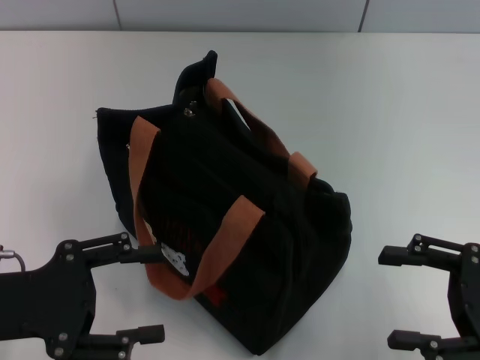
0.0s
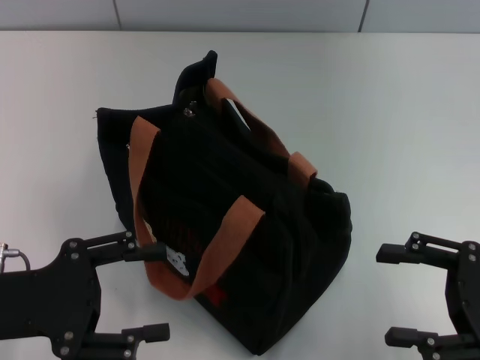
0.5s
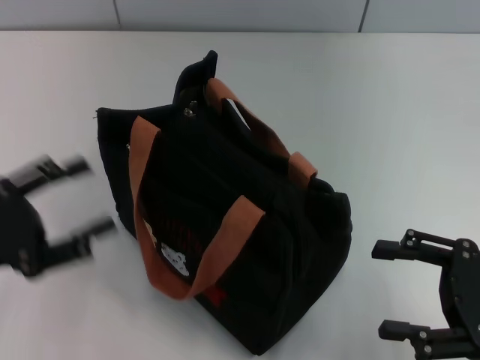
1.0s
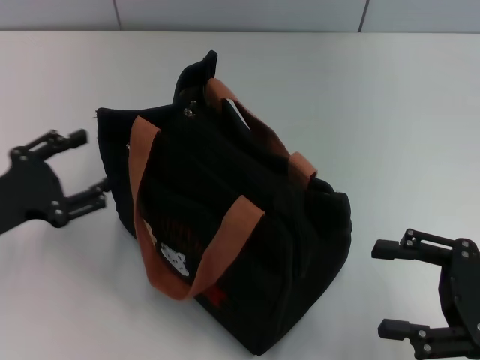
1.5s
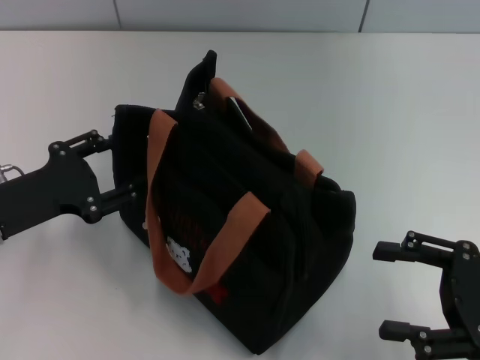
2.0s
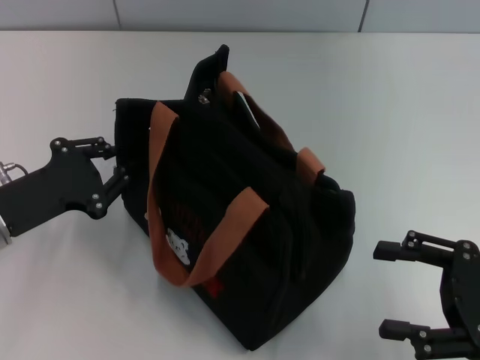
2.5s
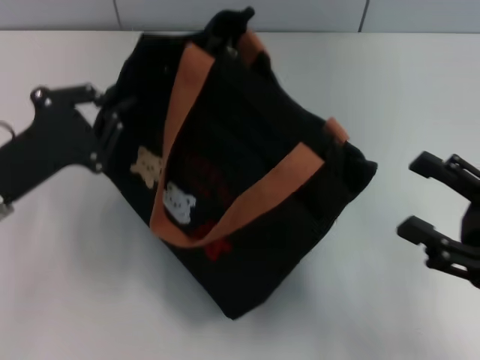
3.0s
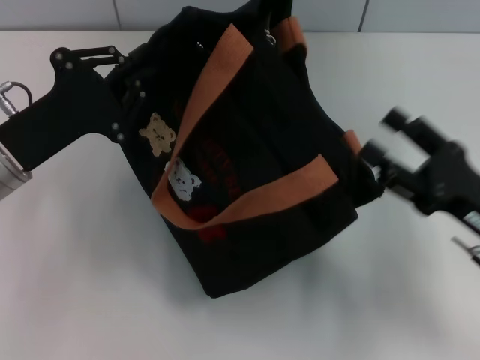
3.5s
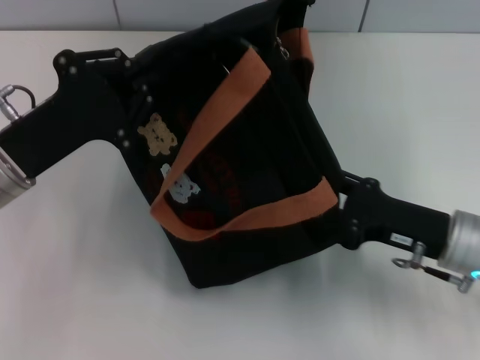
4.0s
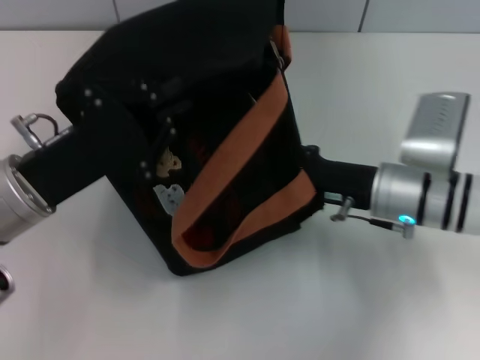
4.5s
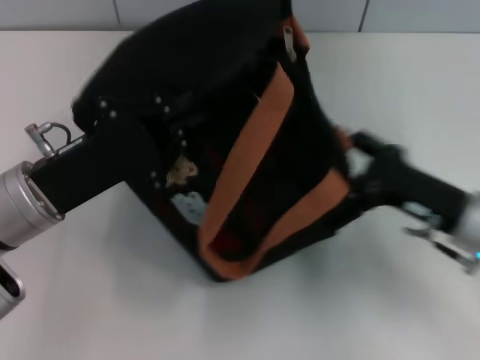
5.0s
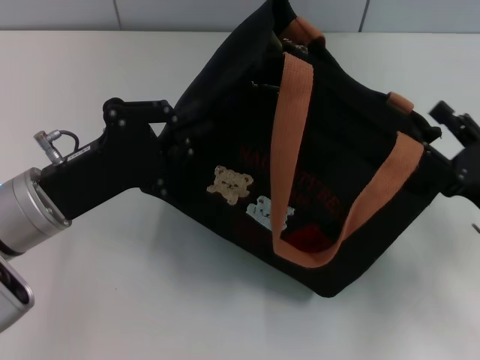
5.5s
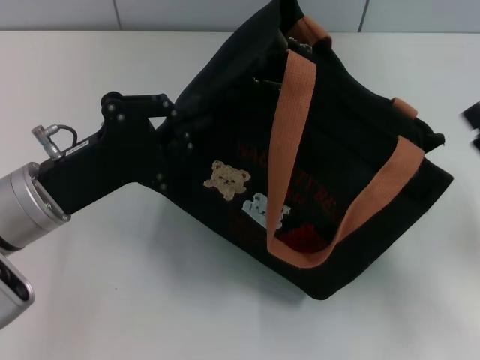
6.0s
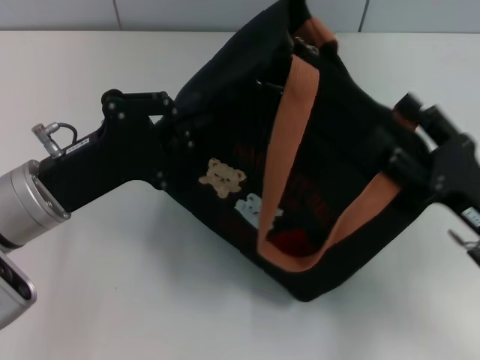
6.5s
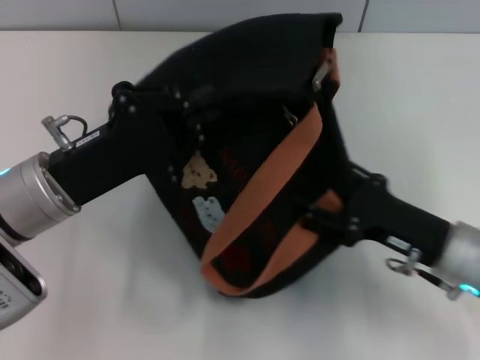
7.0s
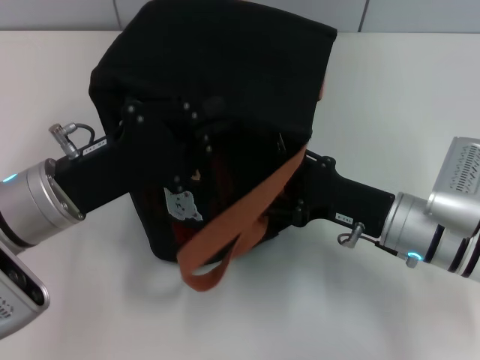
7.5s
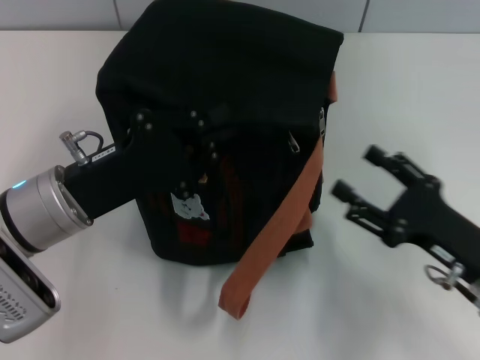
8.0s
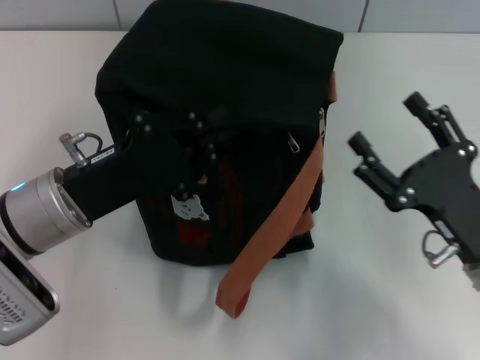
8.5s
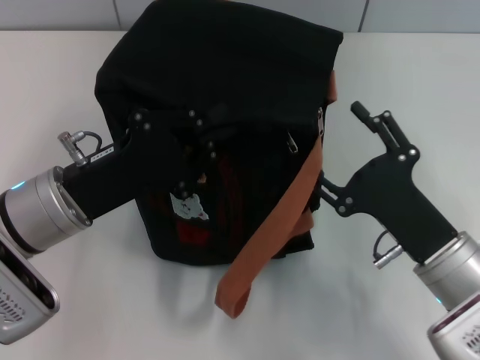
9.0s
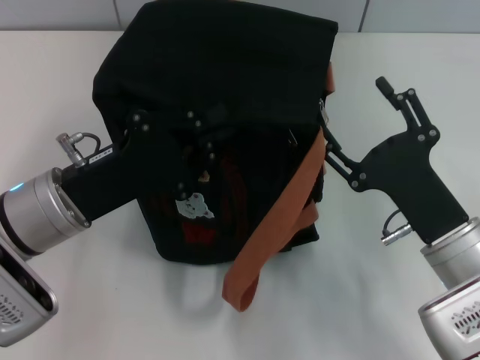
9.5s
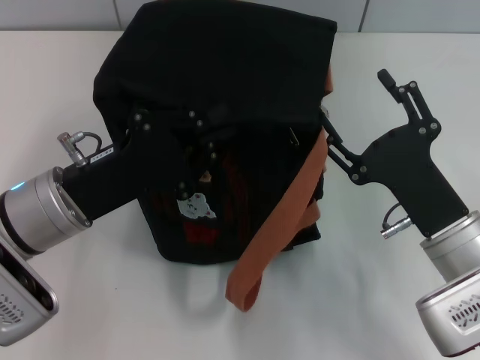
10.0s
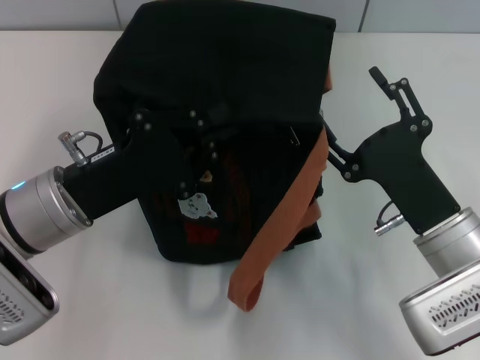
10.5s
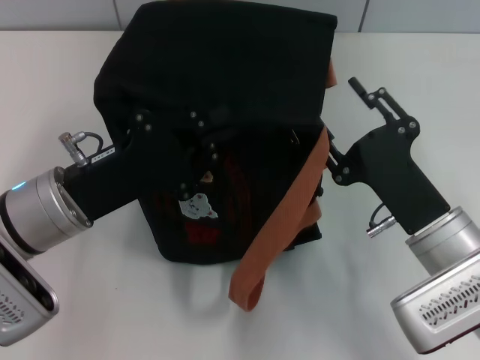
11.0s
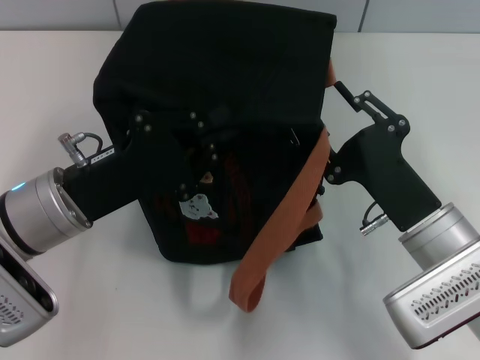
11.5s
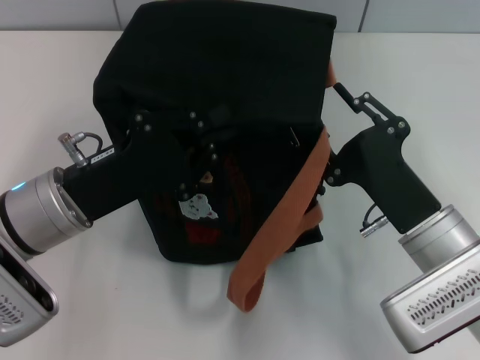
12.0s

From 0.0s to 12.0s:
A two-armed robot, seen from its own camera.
From 0.0s to 2.0s: The left gripper shifts some 5 cm forward.
From 2.0s to 4.0s: The left gripper moves some 5 cm, and closes its fingers. The right gripper heads to the left and forward, covering some 10 cm.
From 4.0s to 6.0s: The right gripper moves to the right and backward, approximately 10 cm.
From 6.0s to 8.0s: The right gripper moves to the left, some 5 cm.
From 8.0s to 10.0s: The right gripper heads to the left, covering some 5 cm.
From 10.0s to 12.0s: The right gripper closes its fingers.

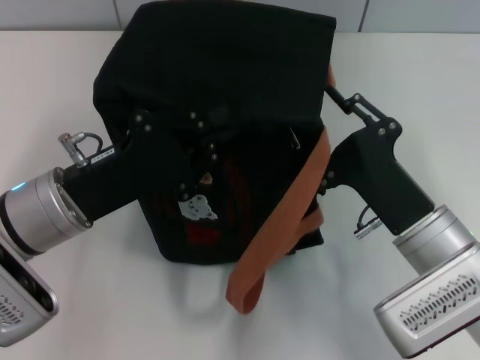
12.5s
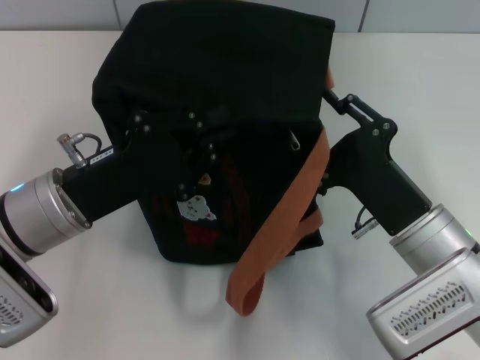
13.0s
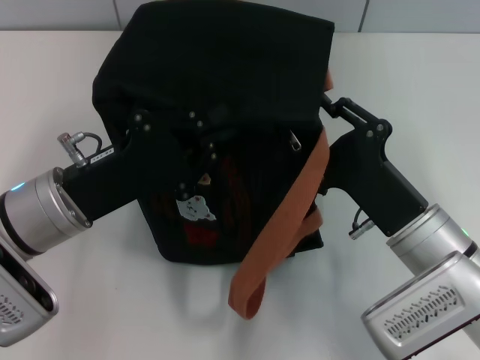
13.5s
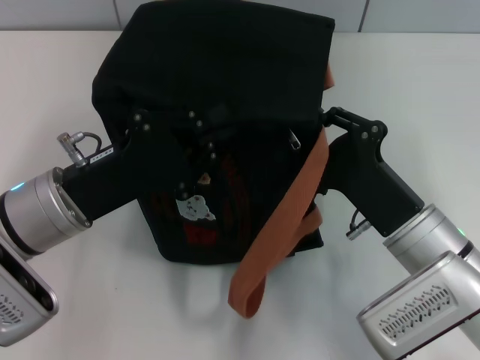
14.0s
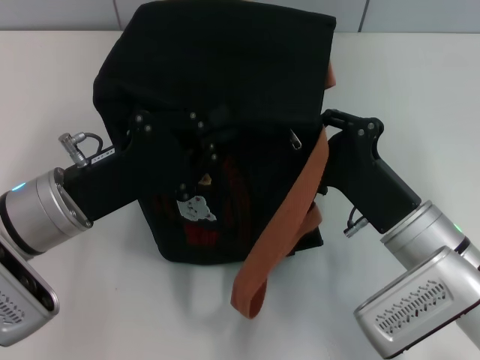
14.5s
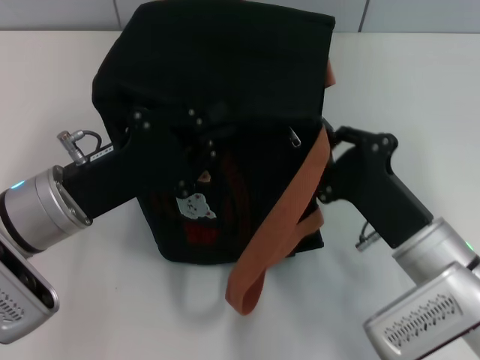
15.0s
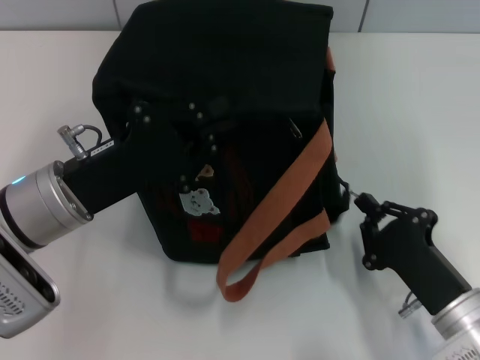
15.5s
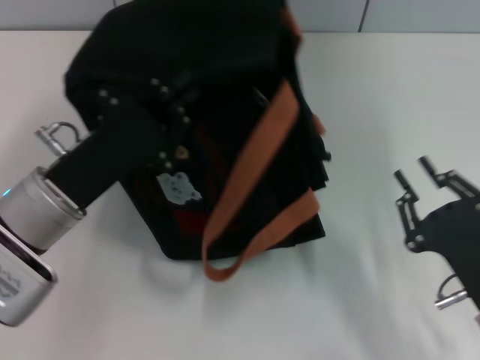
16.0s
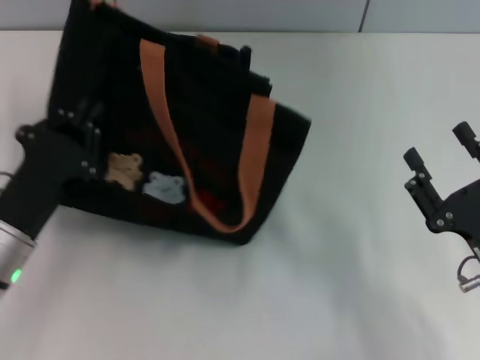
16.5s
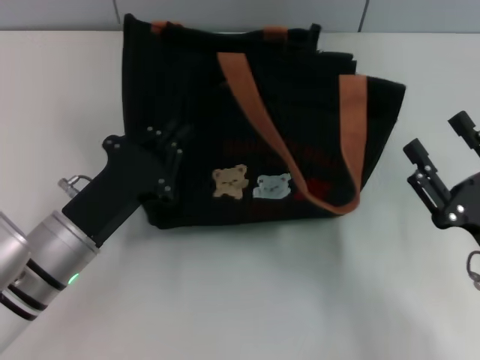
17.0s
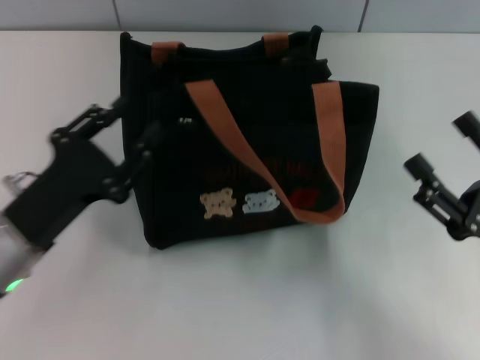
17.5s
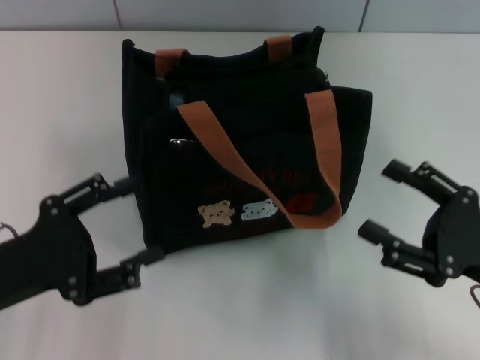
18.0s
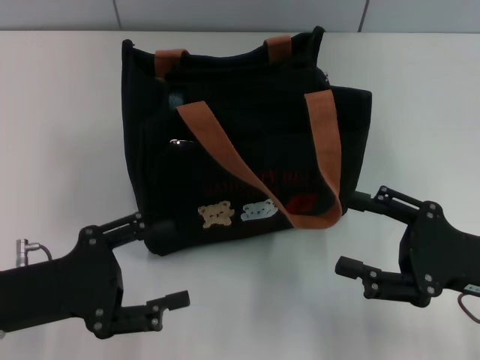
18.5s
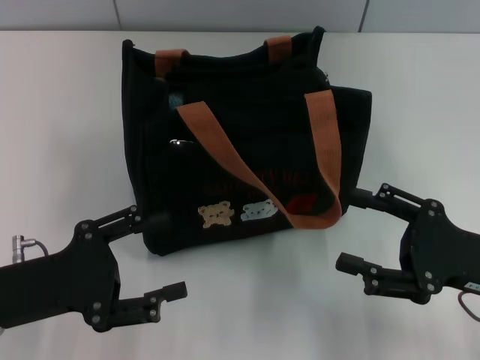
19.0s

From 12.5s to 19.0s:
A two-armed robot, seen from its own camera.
Step, from 12.5s to 15.5s: Pull open the zipper with your right hand.
Step, from 16.0s to 17.0s: Grab the bag with your left hand.
From 12.5s to 14.5s: The right gripper closes.
From 14.5s to 17.0s: The left gripper is displaced downward by about 5 cm; the right gripper is displaced to the right and backward by approximately 10 cm, and opens up.
From 17.0s to 19.0s: The left gripper moves to the left, some 5 cm, and opens.

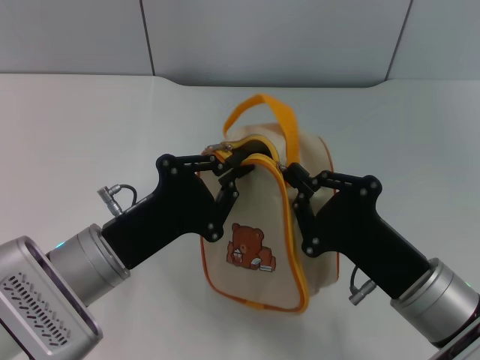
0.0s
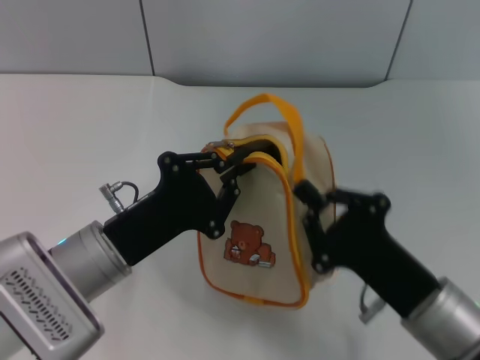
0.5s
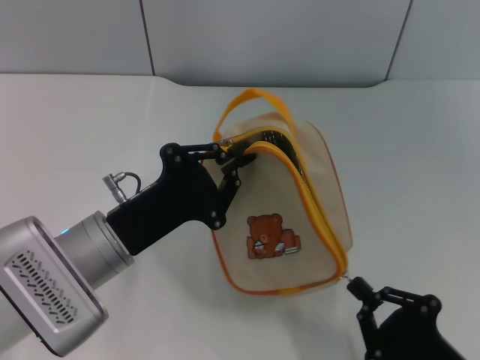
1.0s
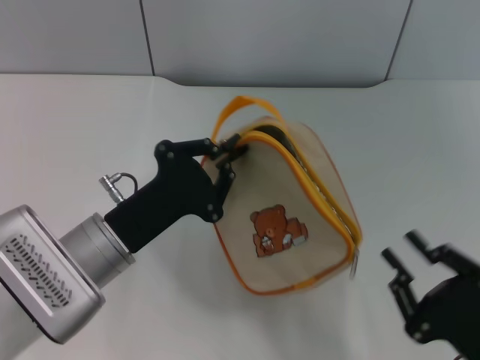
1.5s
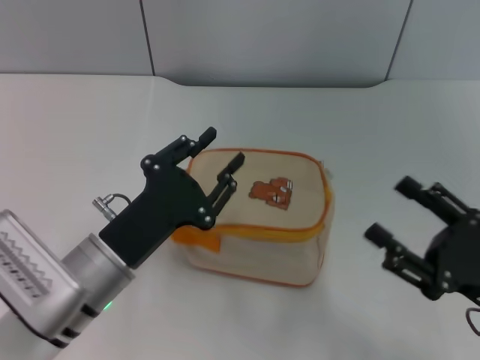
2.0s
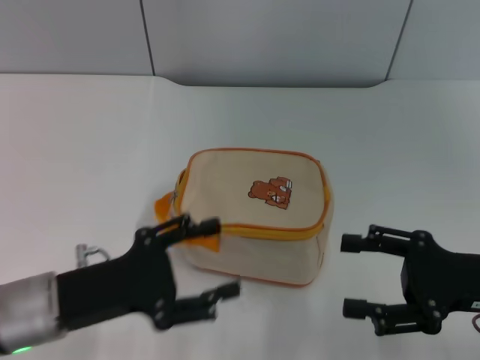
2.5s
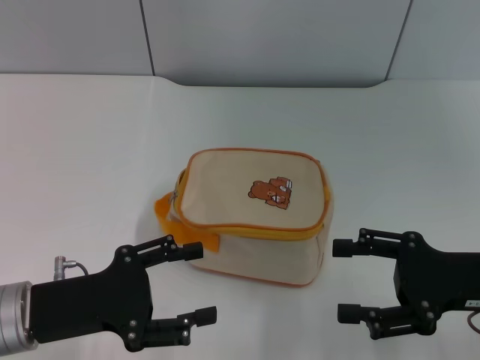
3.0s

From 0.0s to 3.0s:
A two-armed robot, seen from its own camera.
From 0.0s to 1.5s: The right gripper is displaced backward and to the right by roughly 10 cm.
From 1.5s to 3.0s: The left gripper shifts roughly 10 cm to the left, and opens up; the right gripper moves forward and upward, approximately 15 cm, and opens its fingers.
